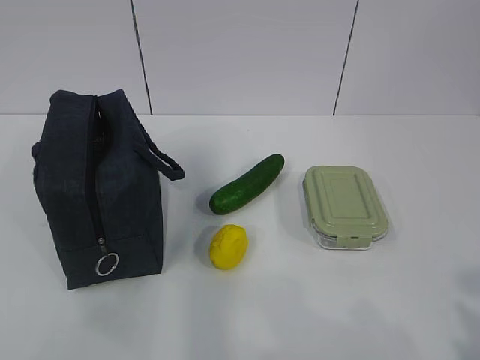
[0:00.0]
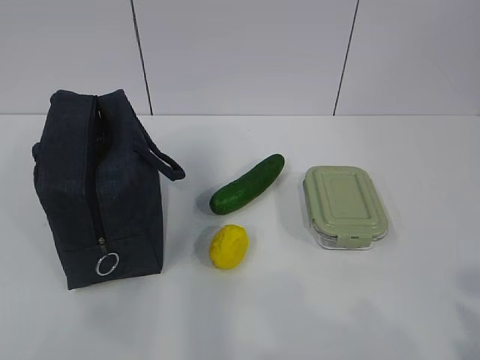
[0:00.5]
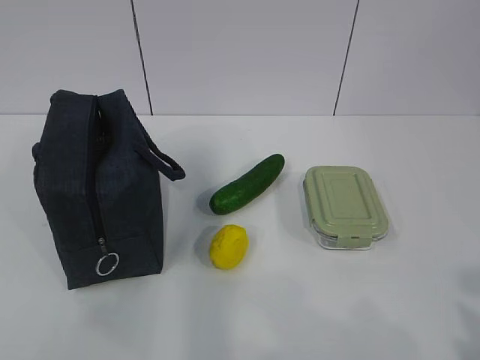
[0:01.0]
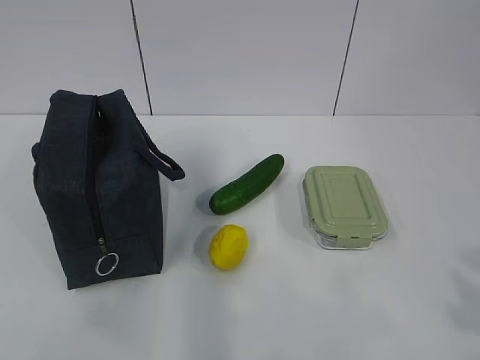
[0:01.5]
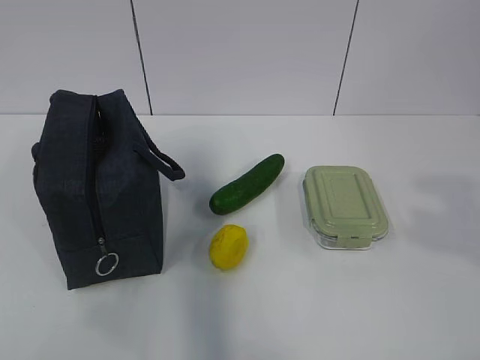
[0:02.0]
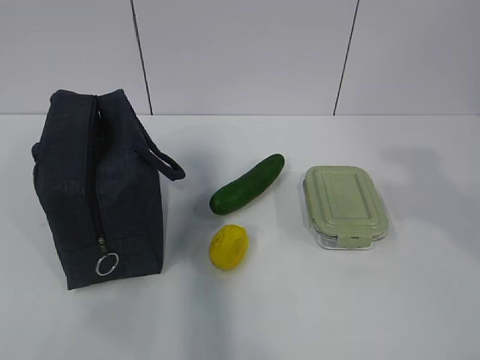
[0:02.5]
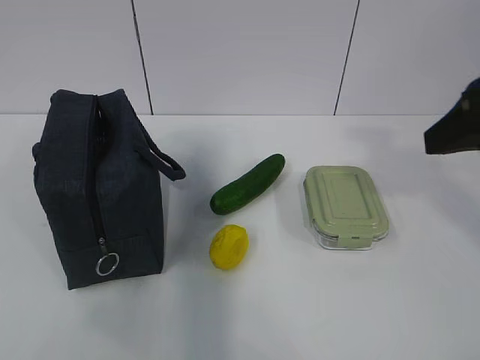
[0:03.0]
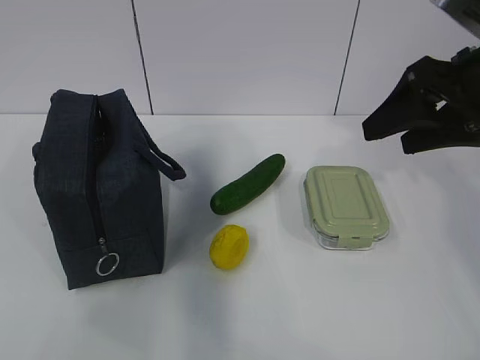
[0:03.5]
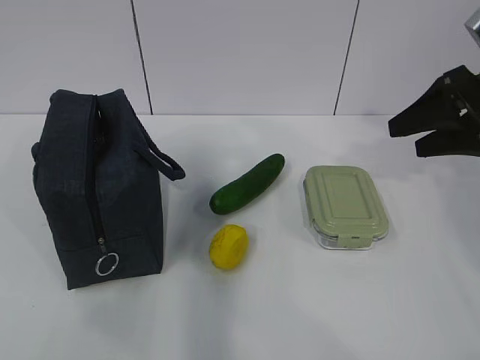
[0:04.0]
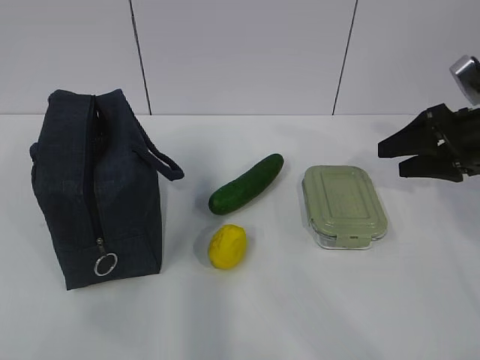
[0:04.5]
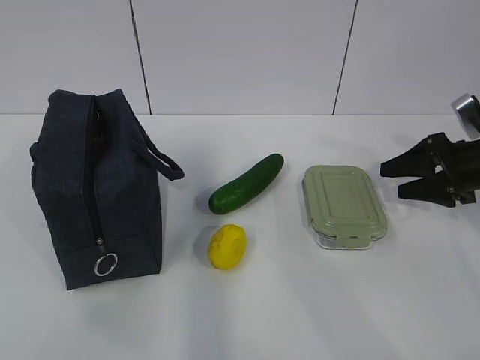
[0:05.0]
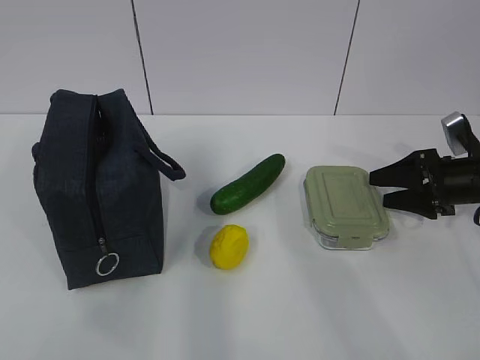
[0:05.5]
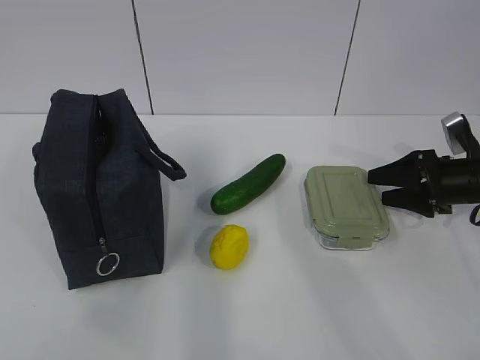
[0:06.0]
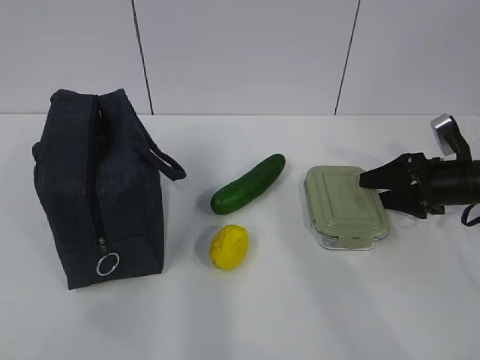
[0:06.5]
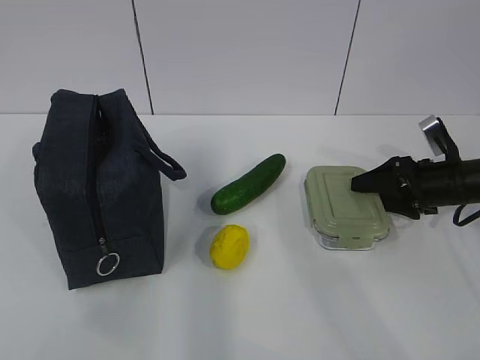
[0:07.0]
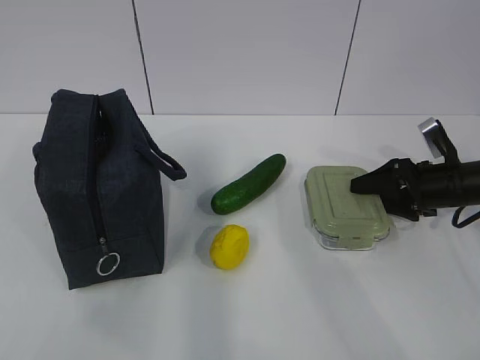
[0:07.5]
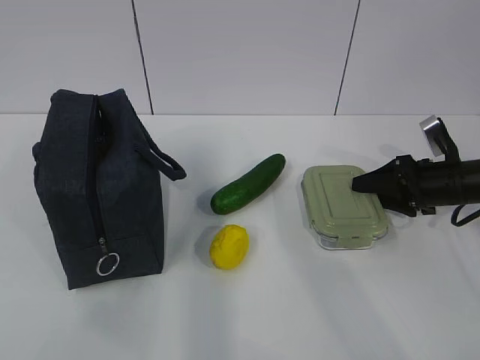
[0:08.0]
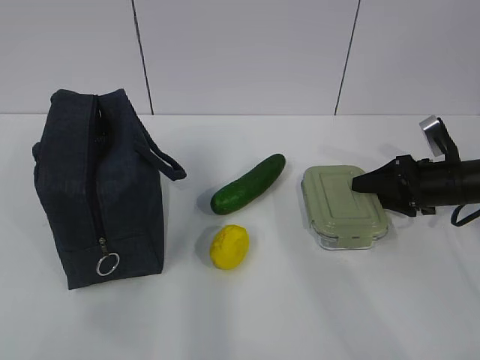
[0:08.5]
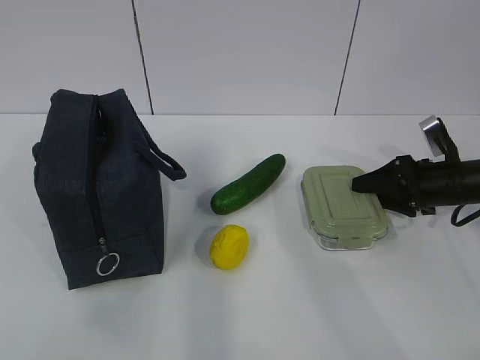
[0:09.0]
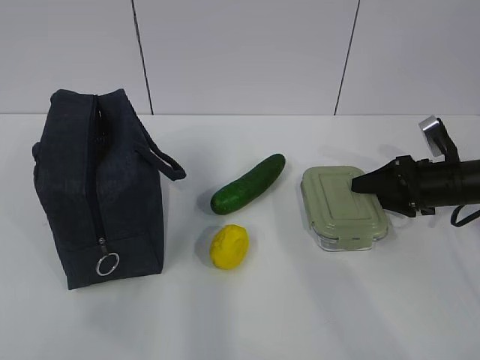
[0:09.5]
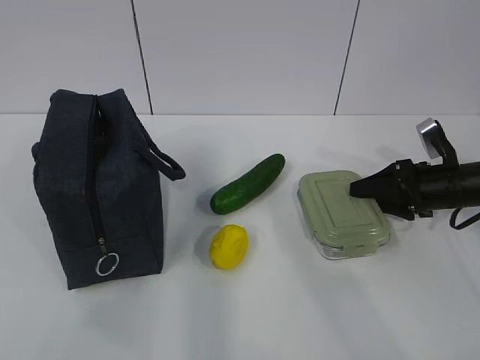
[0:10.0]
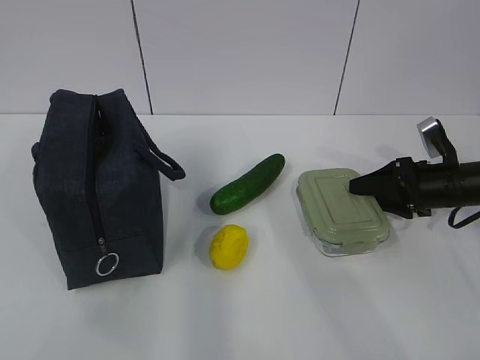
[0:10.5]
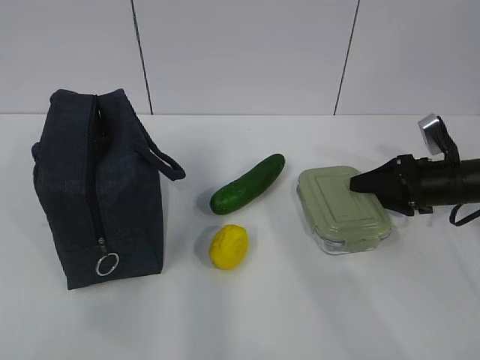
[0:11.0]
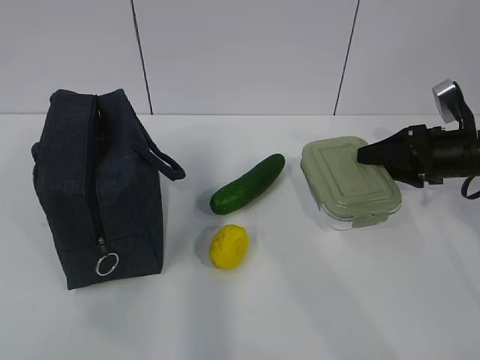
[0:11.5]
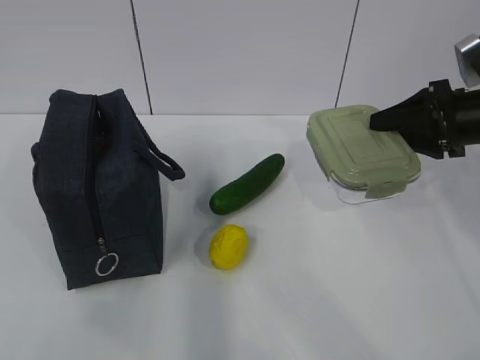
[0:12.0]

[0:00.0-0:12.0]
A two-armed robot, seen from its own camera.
Step, 0:00.0 to 0:09.0: Grab the lunch box with your right hand.
0:02.0 to 0:04.0: The right gripper shifts some 25 cm forward.
0:04.0 to 0:06.0: The right gripper is displaced downward by about 15 cm.
0:06.0 to 0:08.0: The grippers stay close to where they were, moving slightly.
0:08.0 to 0:10.0: Both grippers stay put.
0:10.0 to 0:12.0: The right gripper is displaced upward by roughly 10 cm.

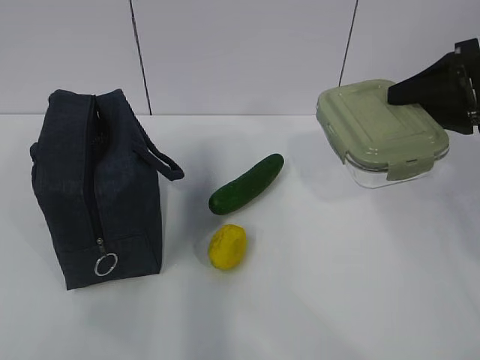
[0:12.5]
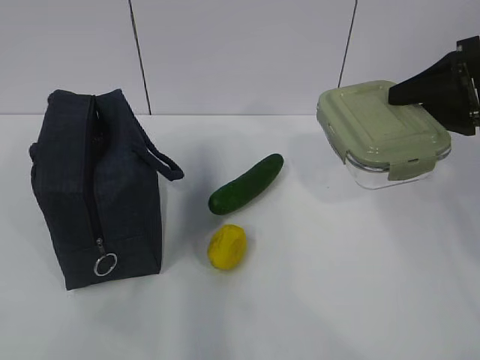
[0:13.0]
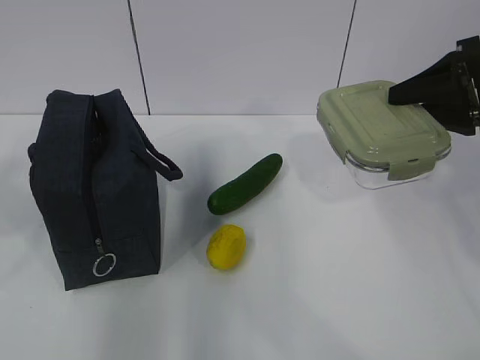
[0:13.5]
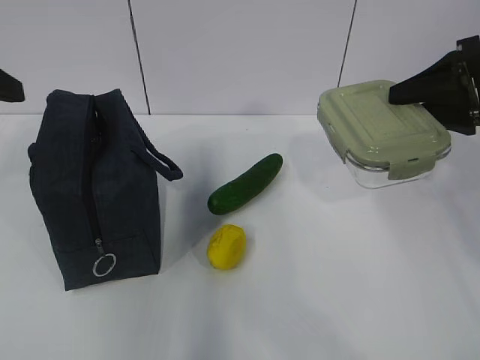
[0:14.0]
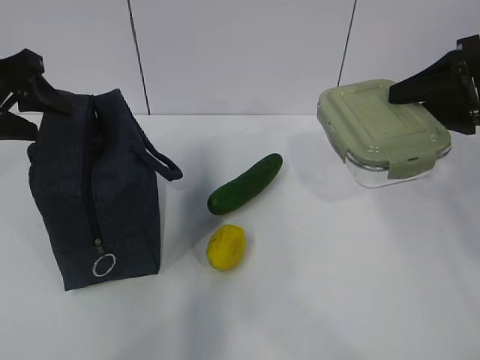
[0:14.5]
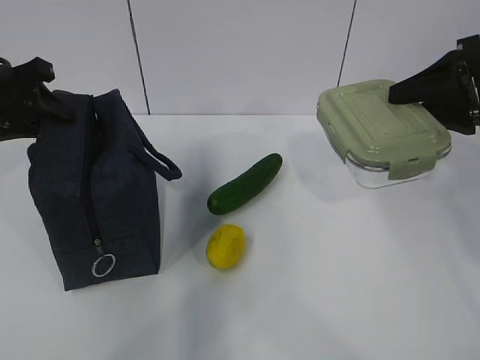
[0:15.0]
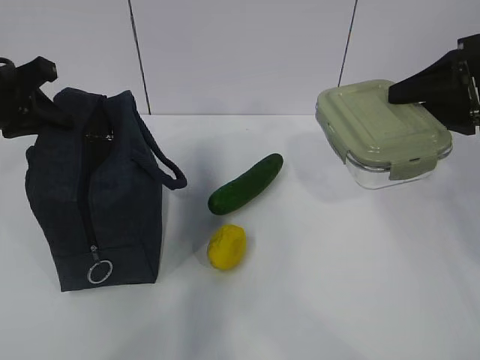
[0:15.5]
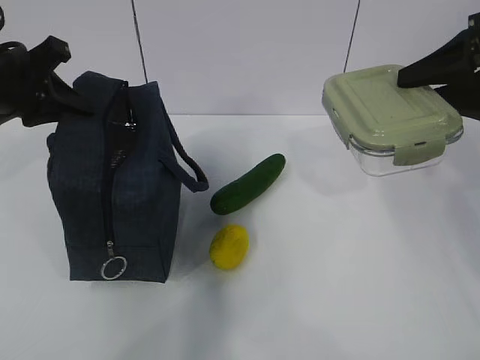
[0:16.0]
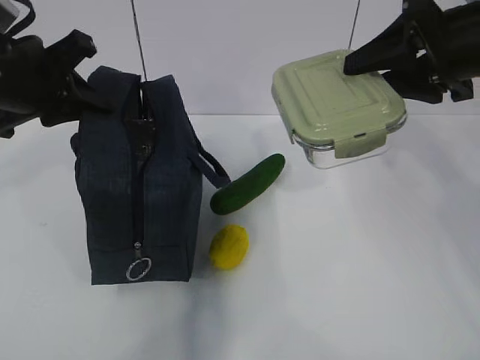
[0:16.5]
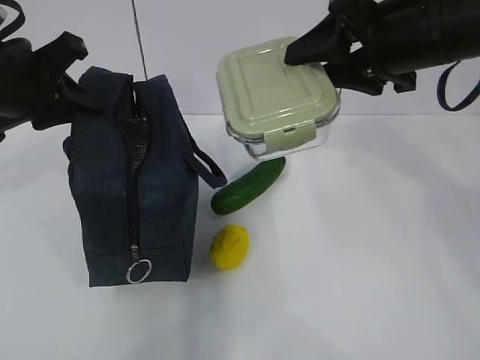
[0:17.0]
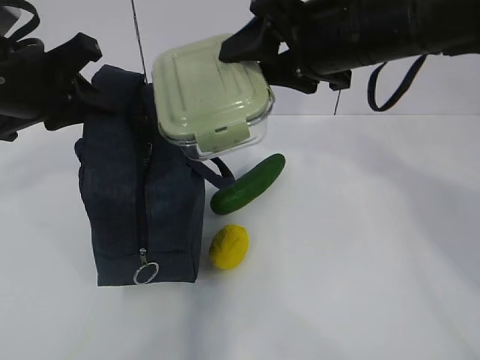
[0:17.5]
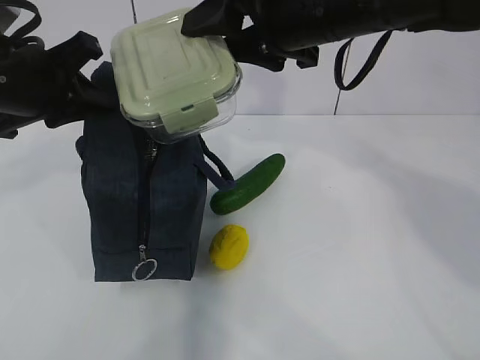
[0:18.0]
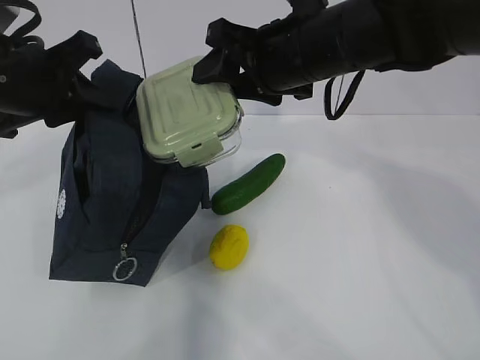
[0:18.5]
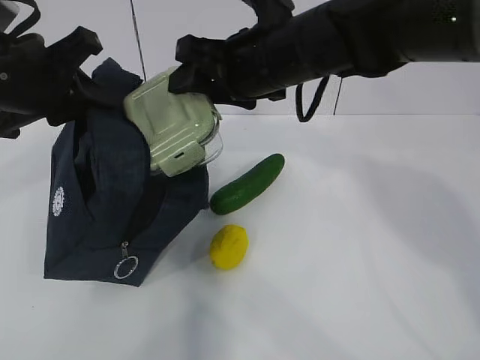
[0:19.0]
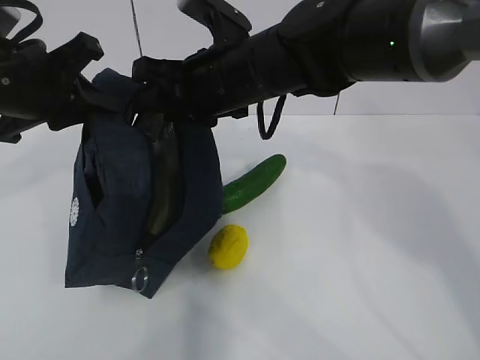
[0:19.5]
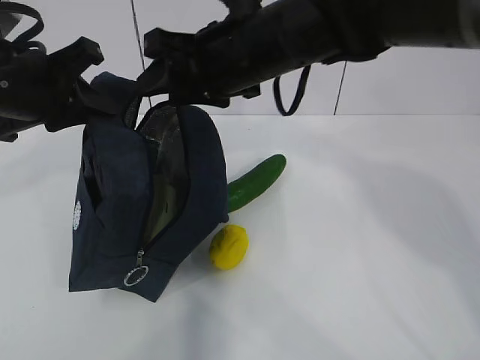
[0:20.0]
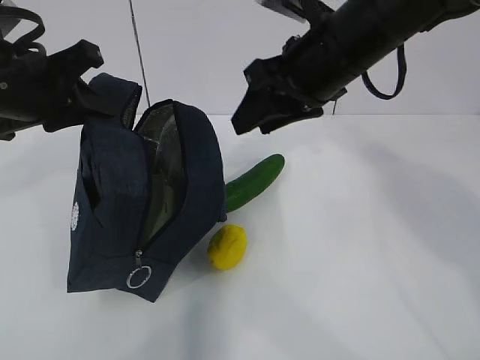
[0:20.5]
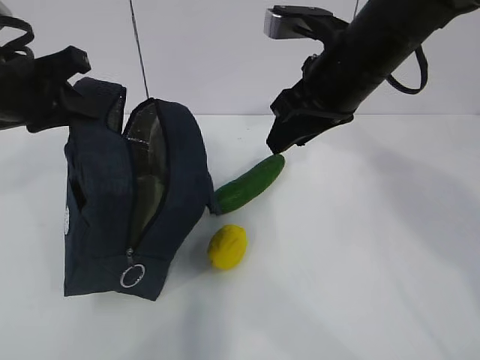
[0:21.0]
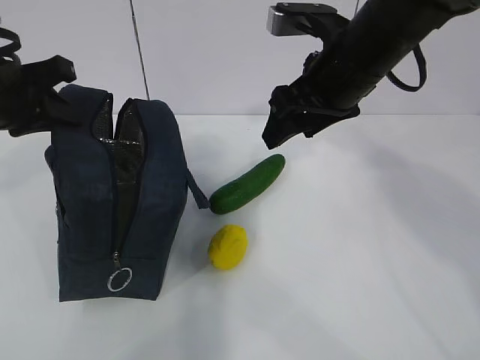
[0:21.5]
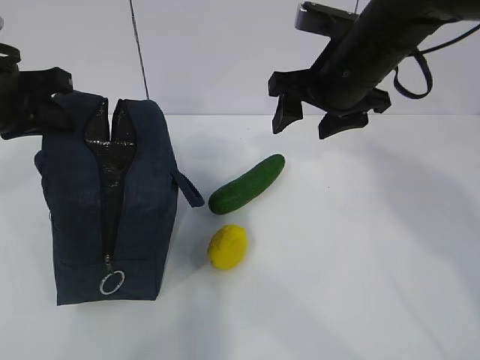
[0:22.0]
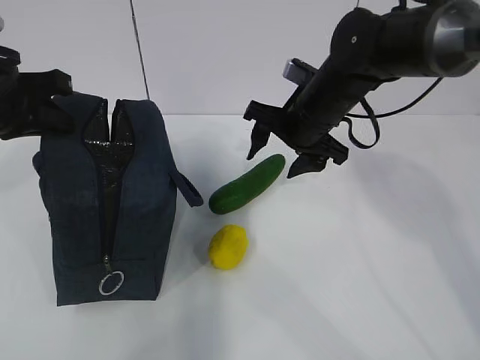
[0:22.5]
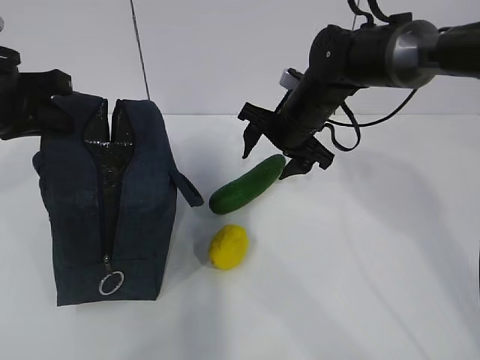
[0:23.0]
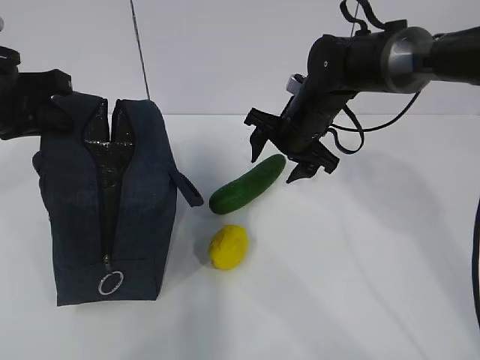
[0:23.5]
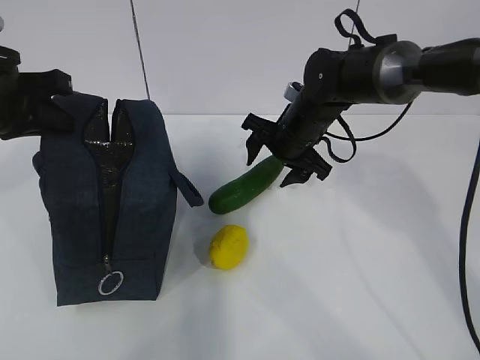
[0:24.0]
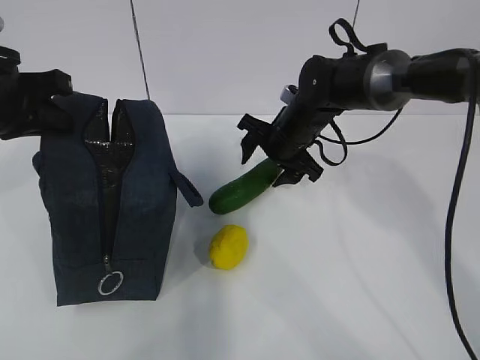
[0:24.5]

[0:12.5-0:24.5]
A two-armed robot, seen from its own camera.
Step, 0:12.5 to 0:15.0: Grab the lunch bag with your left hand.
Step, 0:15.5 to 0:16.0: Place it into the bag with your right hand.
Step, 0:16.5 to 0:21.0: Grab the cucumber with your right hand.
0:12.5 to 0:14.5: The left gripper is displaced forward by approximately 35 cm, and opens.
0:14.5 to 0:16.5: The right gripper travels to the left by some 5 cm; the left gripper heads to the right, covering about 5 cm, and closes up.
0:16.5 to 0:18.5: The right gripper shifts about 15 cm to the left.
0:18.5 to 0:20.5: The right gripper moves roughly 5 cm to the left and comes back.
0:20.5 to 0:22.5: The right gripper shifts some 10 cm downward and forward, and opens.
0:22.5 to 0:24.5: The right gripper travels downward by about 5 cm.

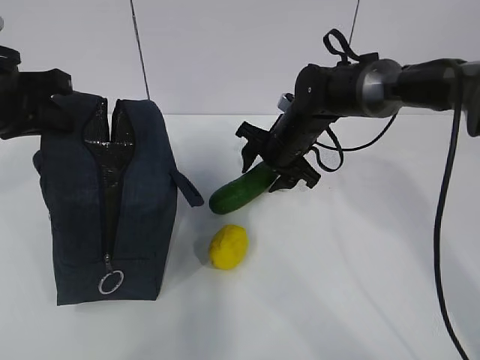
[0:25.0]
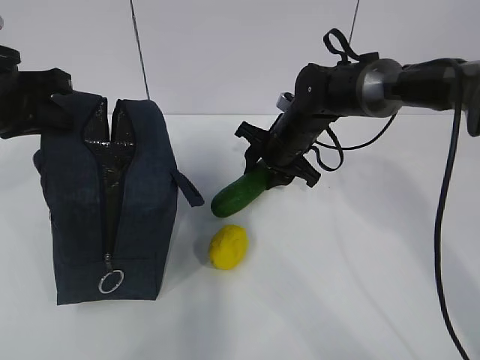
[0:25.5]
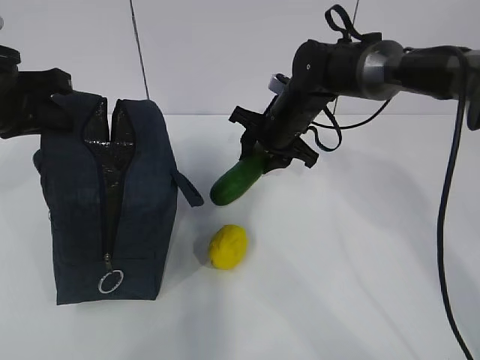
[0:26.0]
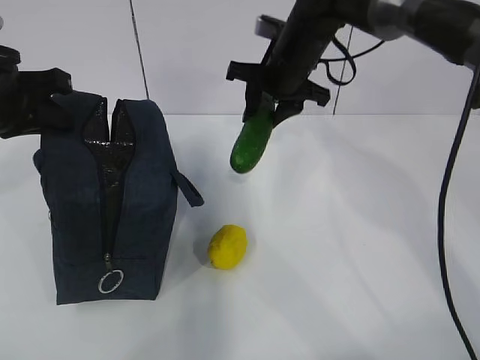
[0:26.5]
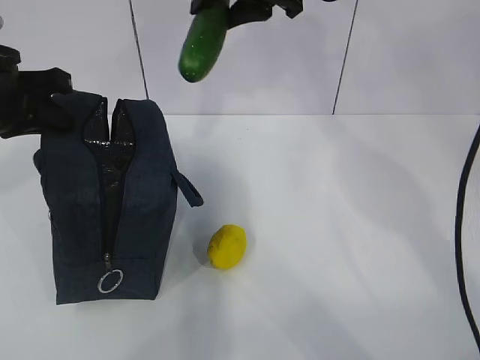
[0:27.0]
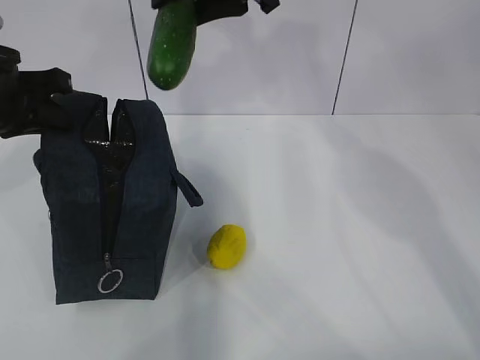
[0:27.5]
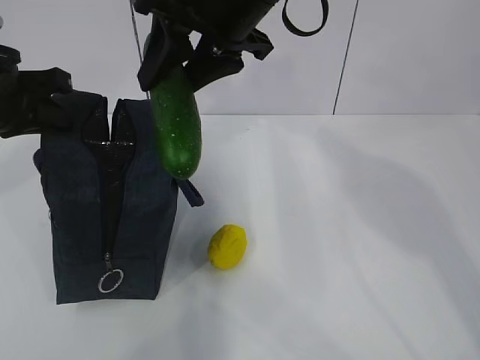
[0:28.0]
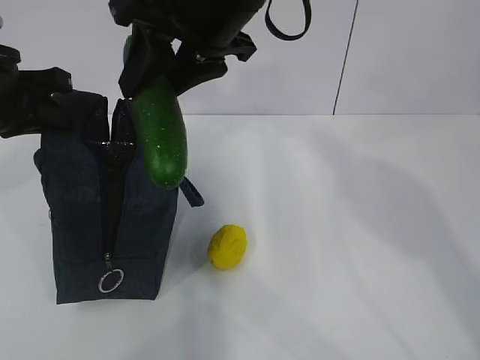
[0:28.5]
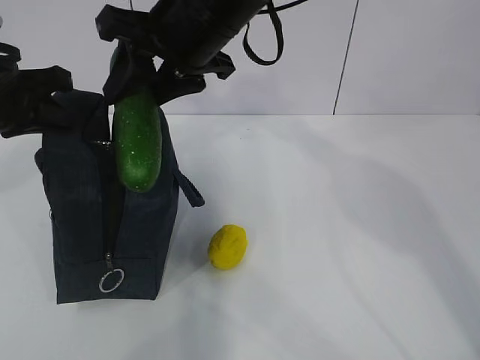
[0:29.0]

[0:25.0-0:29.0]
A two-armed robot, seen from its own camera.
0:25.0 to 0:27.0: The right gripper goes approximately 25 cm upward.
0:27.0 to 0:29.0: The right gripper is displaced backward and to the left by some 10 cm.
